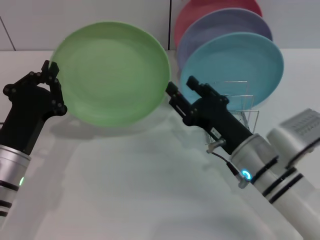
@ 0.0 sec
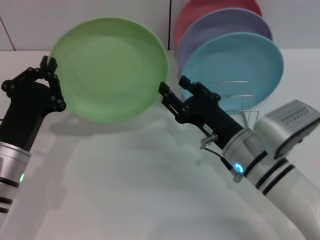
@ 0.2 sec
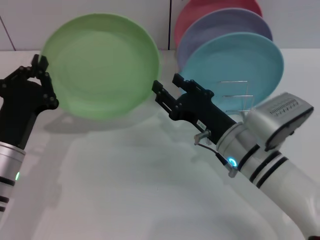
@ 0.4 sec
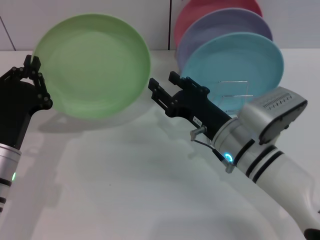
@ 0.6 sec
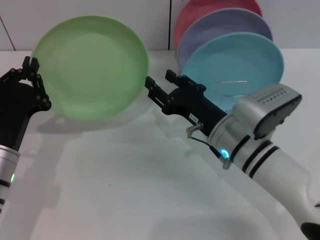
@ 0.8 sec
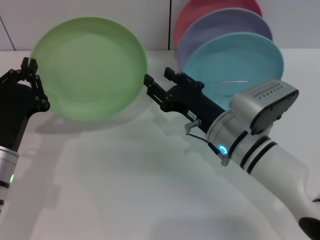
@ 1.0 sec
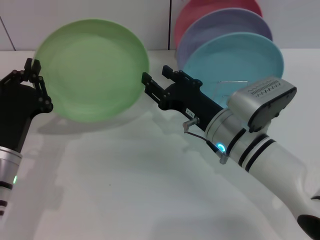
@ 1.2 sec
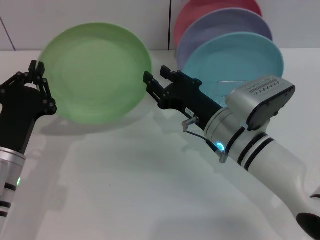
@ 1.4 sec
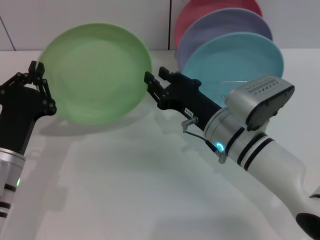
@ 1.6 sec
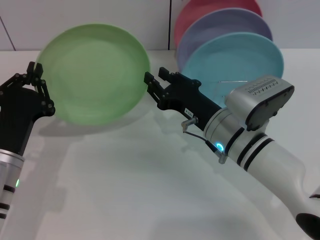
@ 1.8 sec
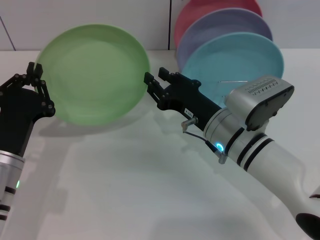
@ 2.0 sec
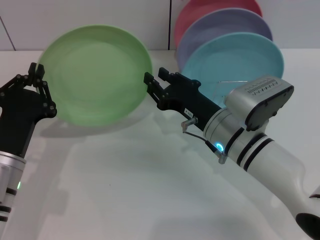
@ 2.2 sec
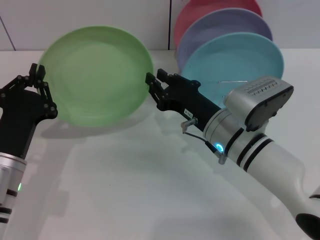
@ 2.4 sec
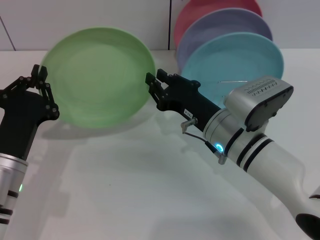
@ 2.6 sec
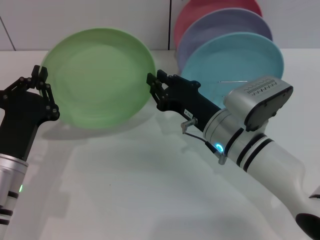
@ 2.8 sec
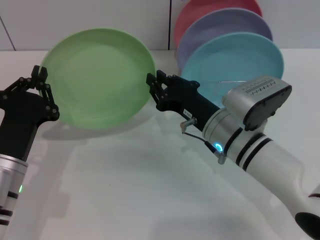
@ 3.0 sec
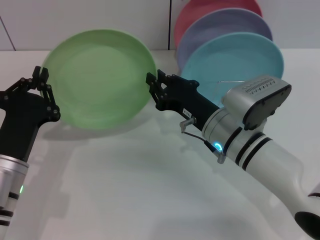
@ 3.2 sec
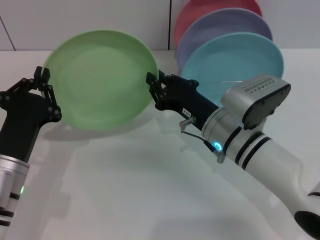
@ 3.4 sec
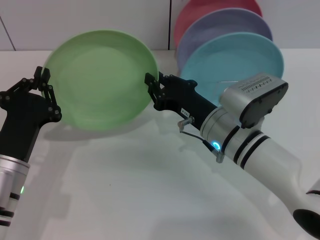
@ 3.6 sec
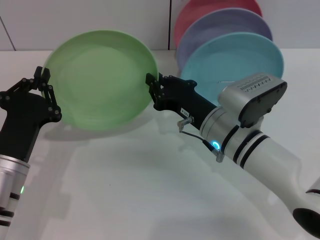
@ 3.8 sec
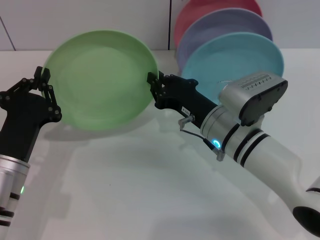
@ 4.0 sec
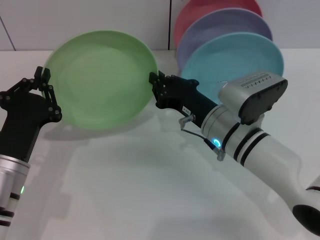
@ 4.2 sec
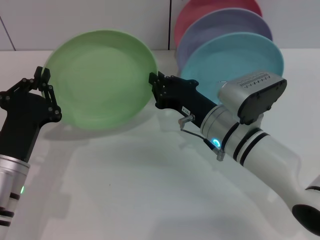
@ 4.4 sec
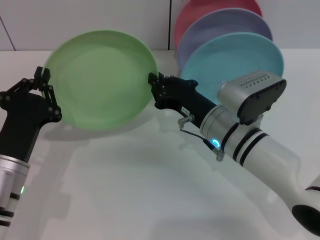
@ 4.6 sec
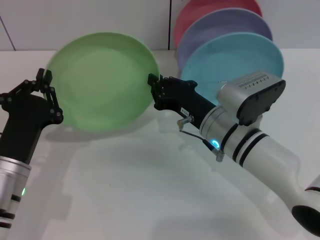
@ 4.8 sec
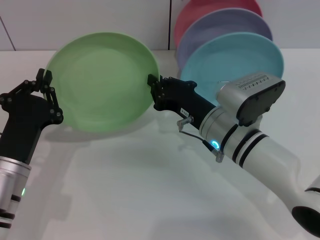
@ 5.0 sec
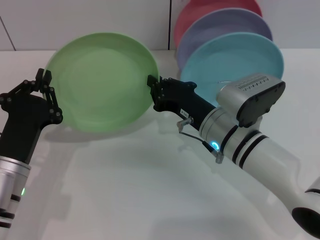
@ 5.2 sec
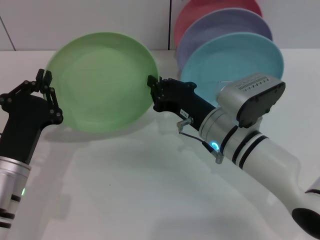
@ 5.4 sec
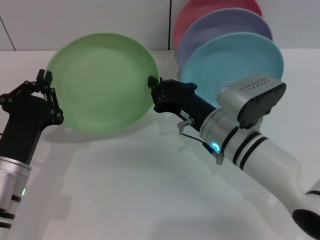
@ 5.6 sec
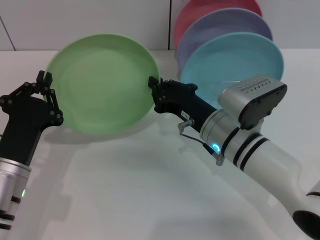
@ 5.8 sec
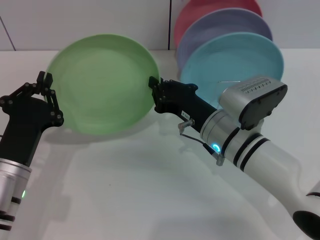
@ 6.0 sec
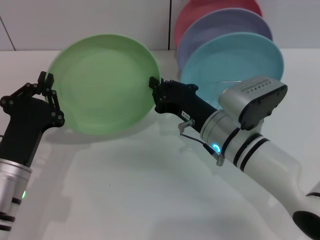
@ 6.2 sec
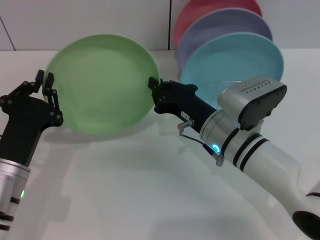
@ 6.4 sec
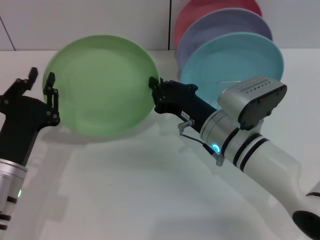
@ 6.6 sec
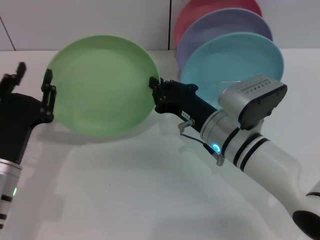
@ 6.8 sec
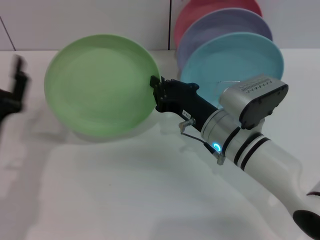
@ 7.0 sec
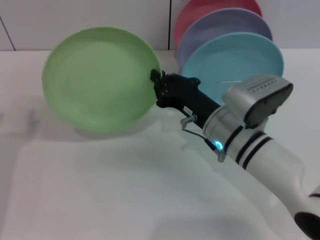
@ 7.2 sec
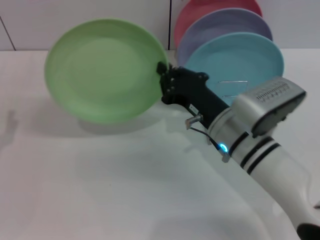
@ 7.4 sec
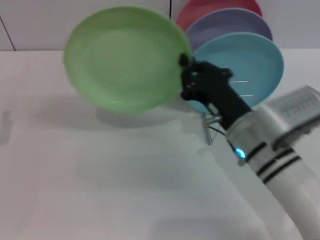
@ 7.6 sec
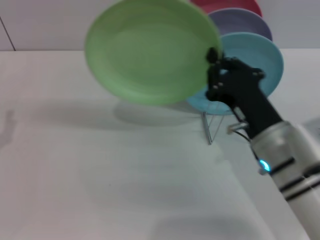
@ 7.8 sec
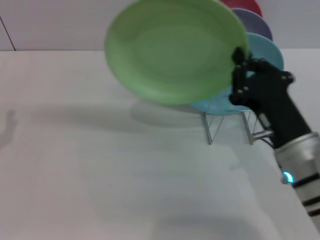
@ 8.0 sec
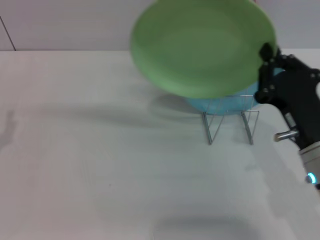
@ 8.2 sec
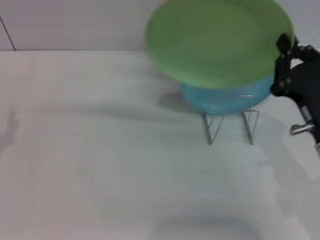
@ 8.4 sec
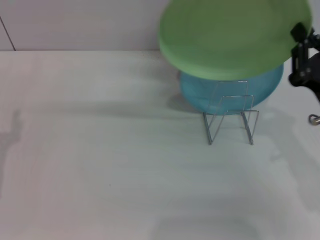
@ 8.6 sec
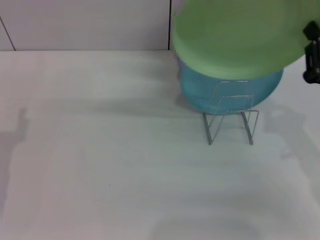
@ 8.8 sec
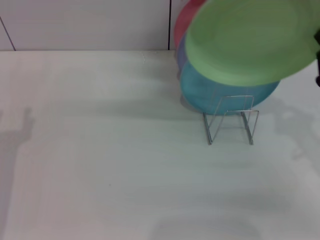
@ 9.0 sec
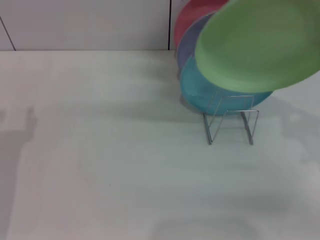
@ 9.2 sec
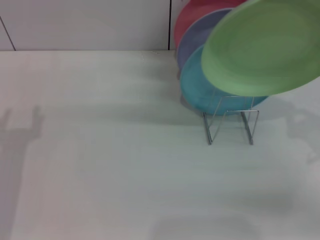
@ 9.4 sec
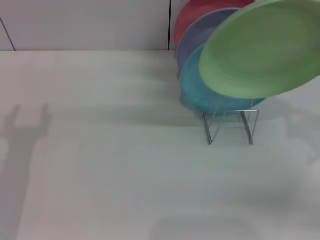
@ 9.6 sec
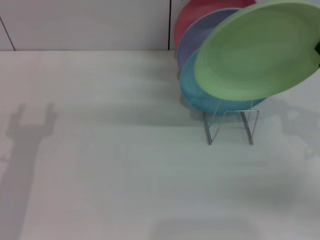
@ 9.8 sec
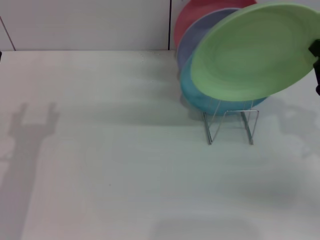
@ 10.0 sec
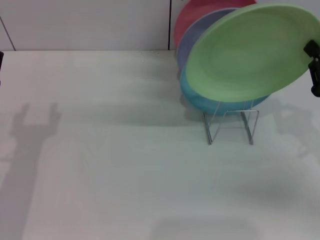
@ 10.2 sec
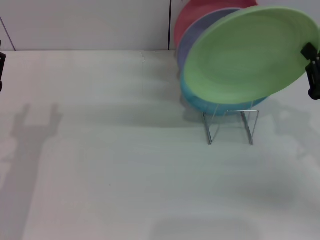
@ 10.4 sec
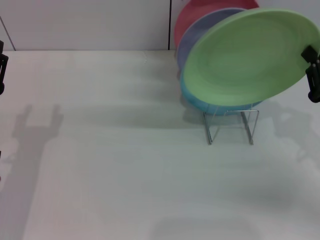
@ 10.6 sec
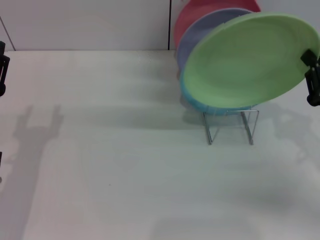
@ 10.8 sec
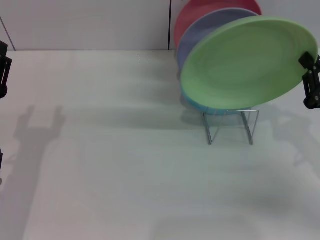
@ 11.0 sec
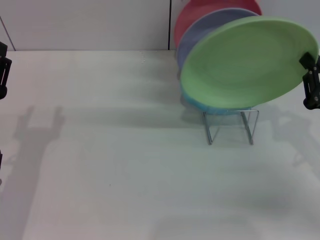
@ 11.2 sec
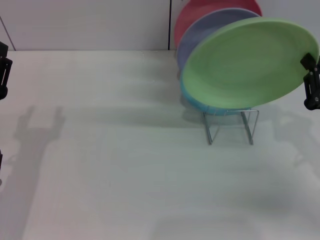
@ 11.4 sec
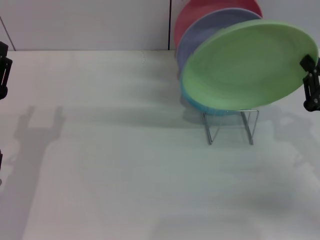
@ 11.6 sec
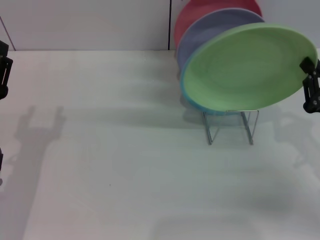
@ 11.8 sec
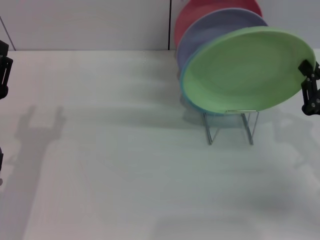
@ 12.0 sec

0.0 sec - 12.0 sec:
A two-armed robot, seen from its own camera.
Task of the whole recording: Grip the plate with one hand, pass it to the other, then set it on the shelf.
Step, 0.0 sec - 7.0 sec: Pass the plate from the left gripper to the right gripper.
0.0 sec - 1.6 sec: The right gripper ends up approximately 5 cm from where it was.
1.6 sec - 4.4 sec: Both grippers stay about where they are.
4.4 sec - 6.0 sec: Neither gripper changes place.
6.0 sec - 7.6 sec: The left gripper heads to the left, covering about 10 cm, and opens.
7.6 sec - 9.0 sec: The right gripper heads to the right, covering some 15 cm.
9.0 sec - 12.0 sec: The grippers make only small movements.

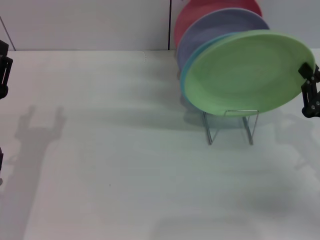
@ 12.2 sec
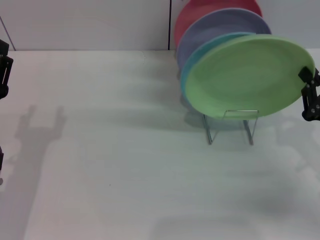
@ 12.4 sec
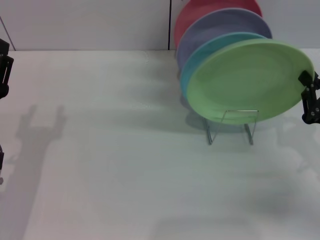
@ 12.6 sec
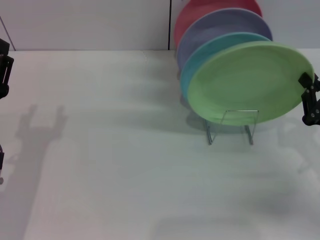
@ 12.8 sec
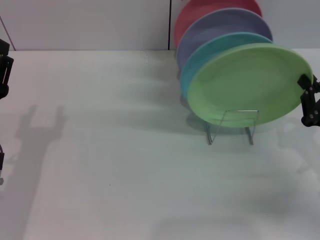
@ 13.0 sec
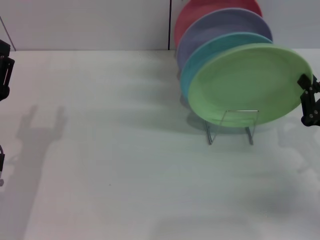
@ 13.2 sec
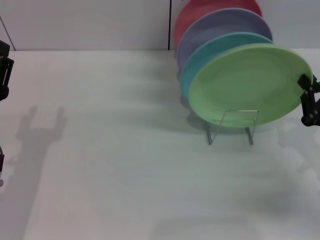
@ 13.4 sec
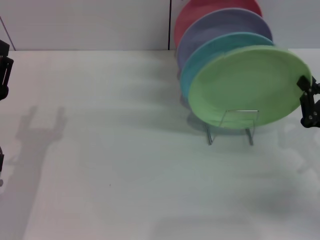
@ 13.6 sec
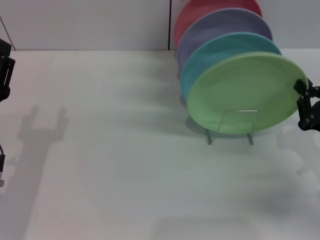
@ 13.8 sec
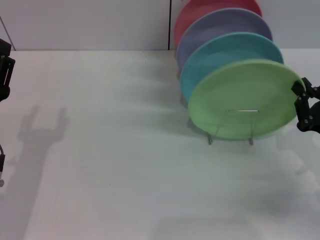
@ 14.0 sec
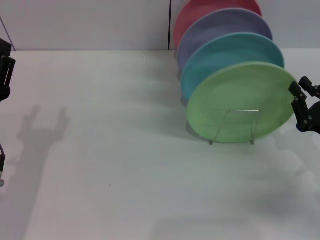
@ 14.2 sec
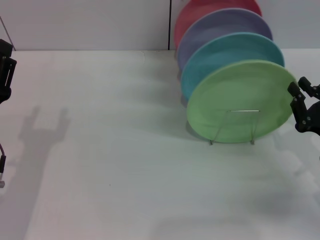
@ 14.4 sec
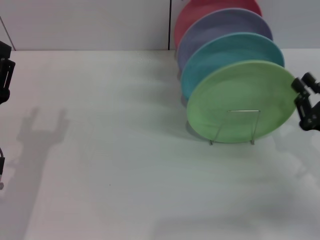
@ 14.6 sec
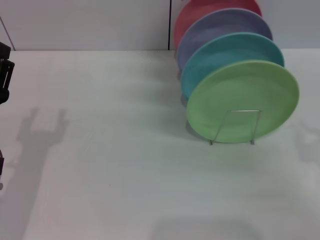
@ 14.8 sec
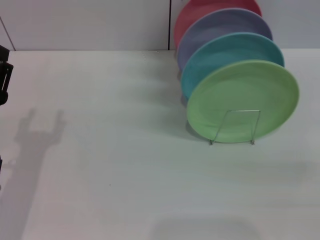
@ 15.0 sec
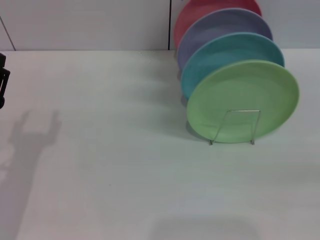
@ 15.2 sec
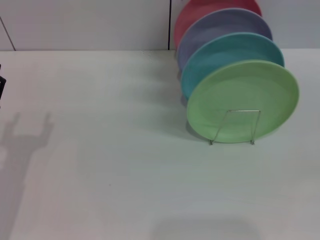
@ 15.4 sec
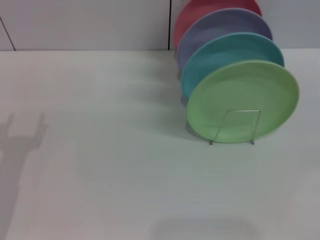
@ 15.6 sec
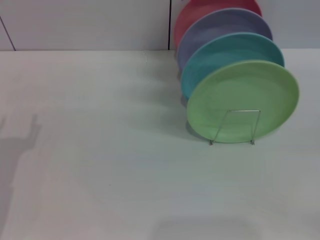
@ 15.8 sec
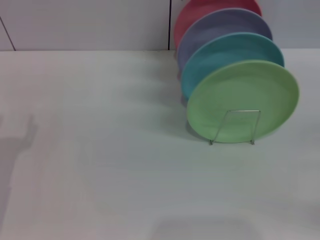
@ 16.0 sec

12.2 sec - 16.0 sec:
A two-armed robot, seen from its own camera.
Task of the whole recording: Grip the plate with one hand, pass it to the other, then set it on the shelf.
Step, 12.2 sec - 14.8 sec: Place the plate on the shelf with the right gripper.
12.2 sec - 13.4 sec: Neither gripper changes place.
13.4 sec - 14.8 sec: The grippers move only a little.
